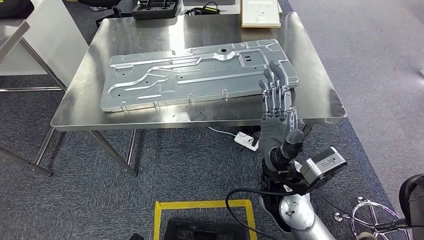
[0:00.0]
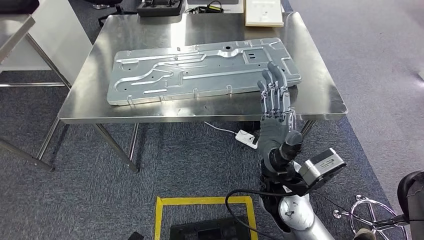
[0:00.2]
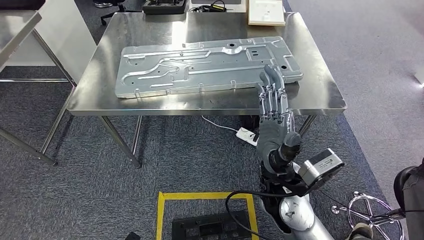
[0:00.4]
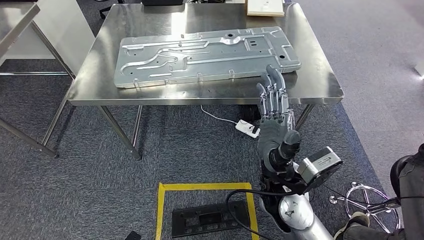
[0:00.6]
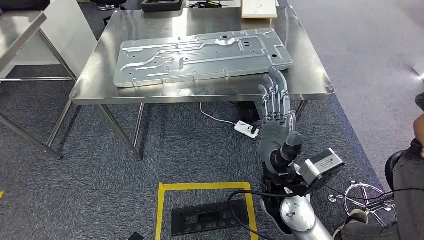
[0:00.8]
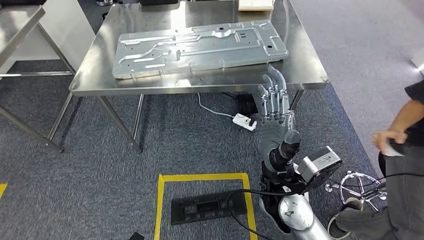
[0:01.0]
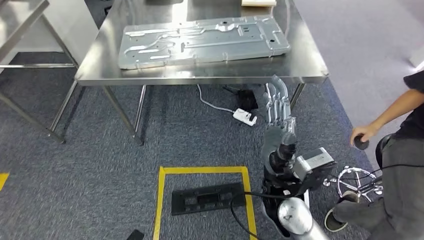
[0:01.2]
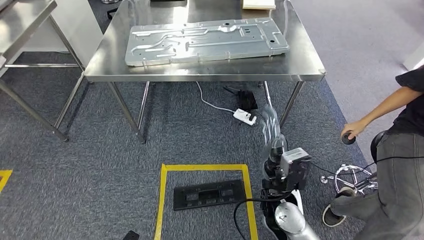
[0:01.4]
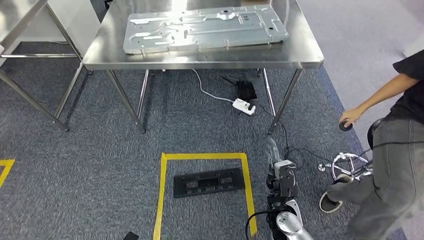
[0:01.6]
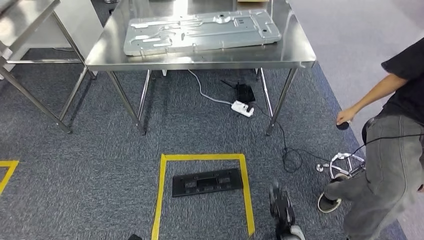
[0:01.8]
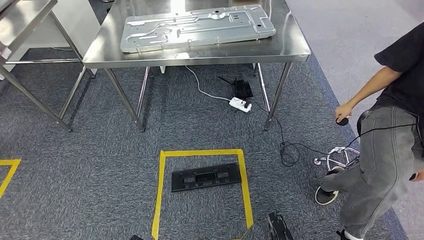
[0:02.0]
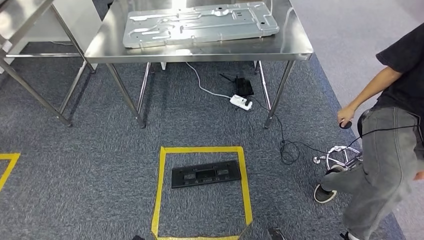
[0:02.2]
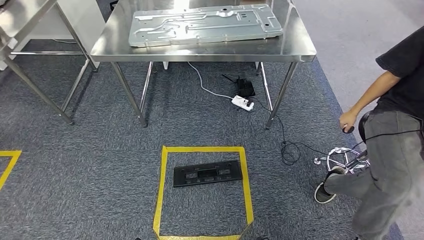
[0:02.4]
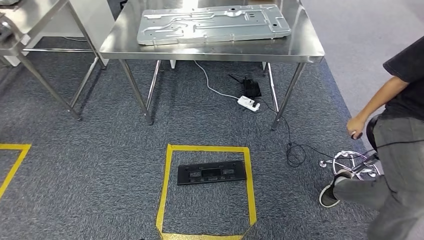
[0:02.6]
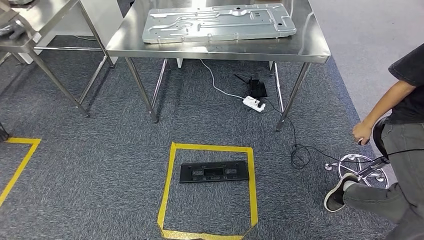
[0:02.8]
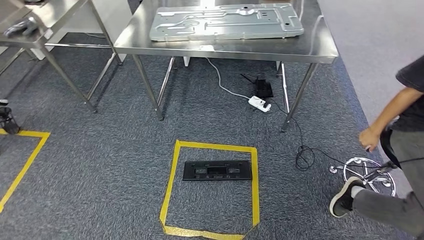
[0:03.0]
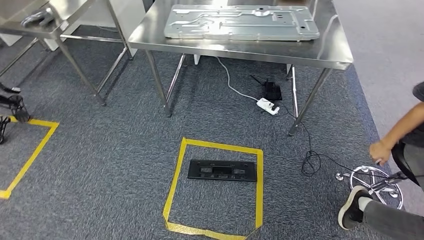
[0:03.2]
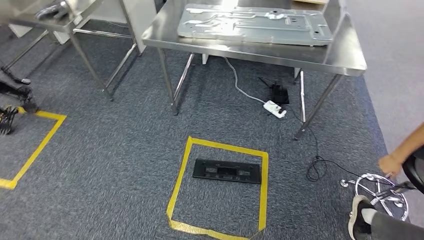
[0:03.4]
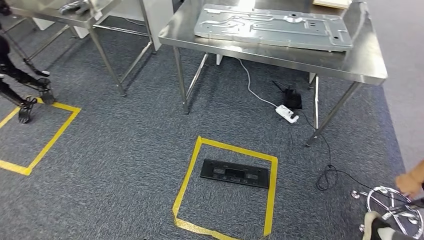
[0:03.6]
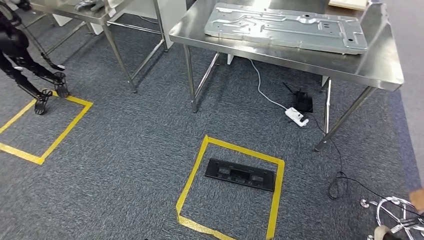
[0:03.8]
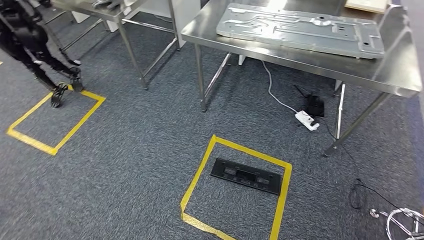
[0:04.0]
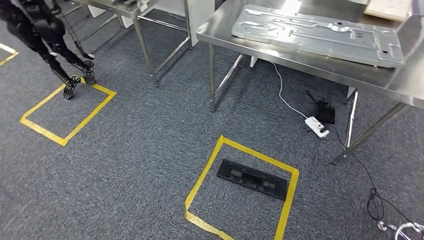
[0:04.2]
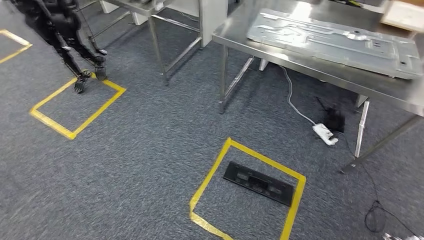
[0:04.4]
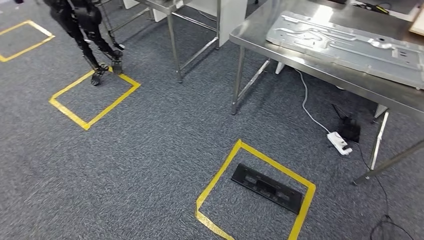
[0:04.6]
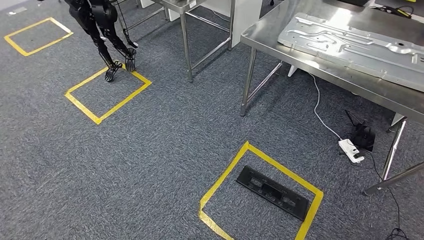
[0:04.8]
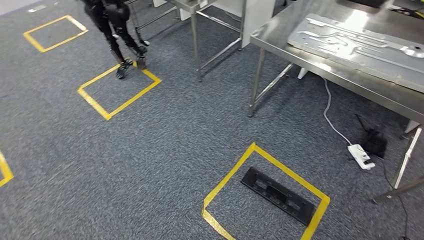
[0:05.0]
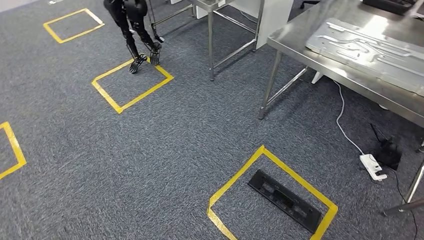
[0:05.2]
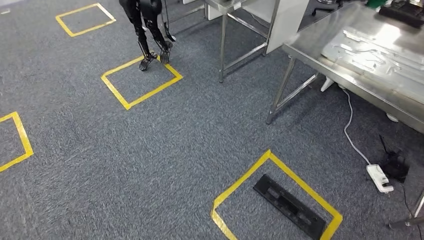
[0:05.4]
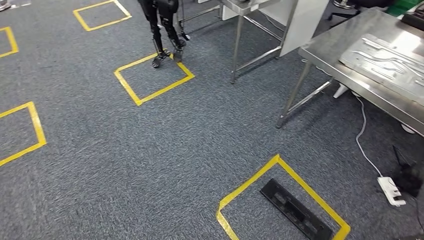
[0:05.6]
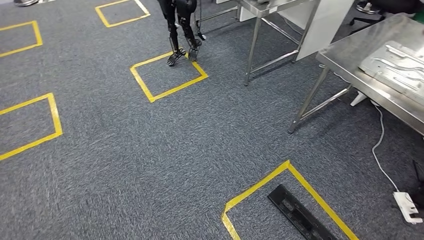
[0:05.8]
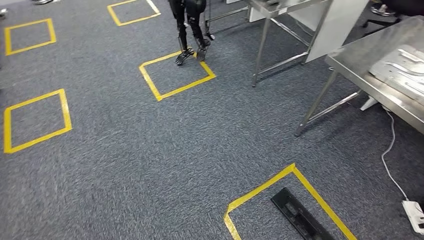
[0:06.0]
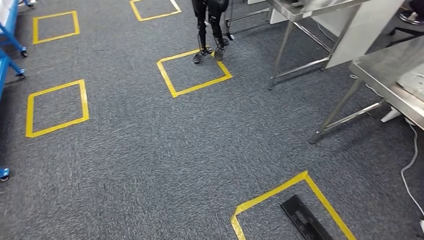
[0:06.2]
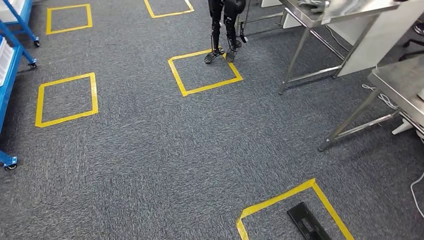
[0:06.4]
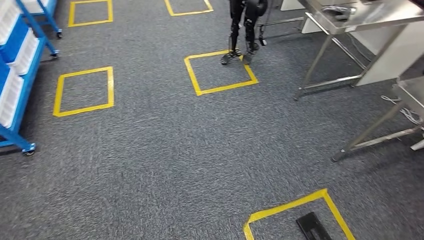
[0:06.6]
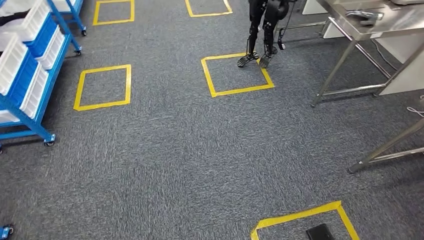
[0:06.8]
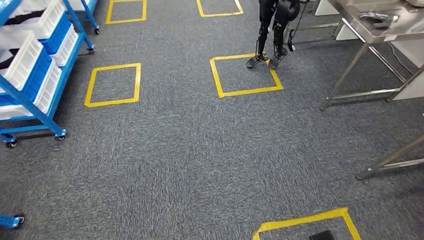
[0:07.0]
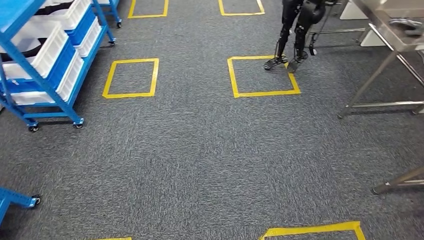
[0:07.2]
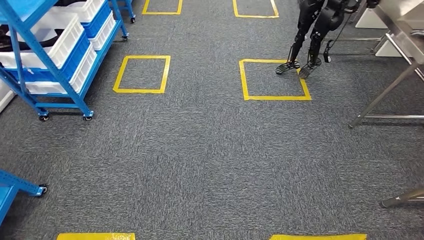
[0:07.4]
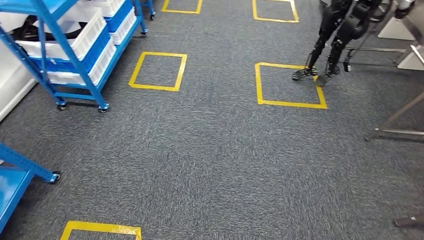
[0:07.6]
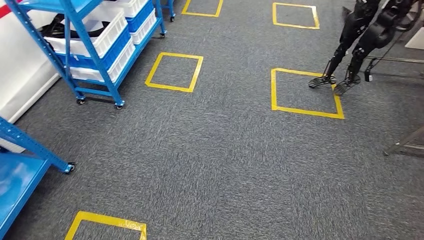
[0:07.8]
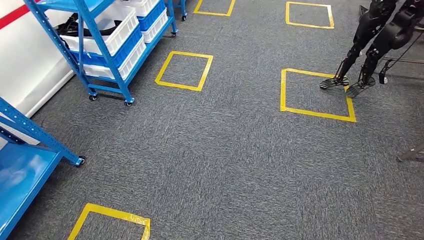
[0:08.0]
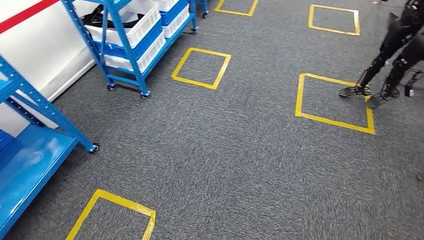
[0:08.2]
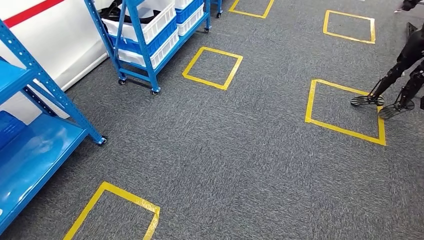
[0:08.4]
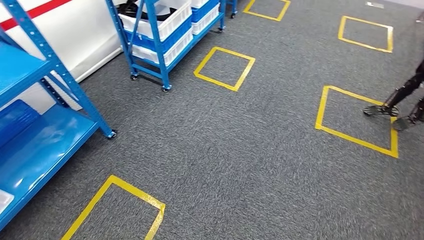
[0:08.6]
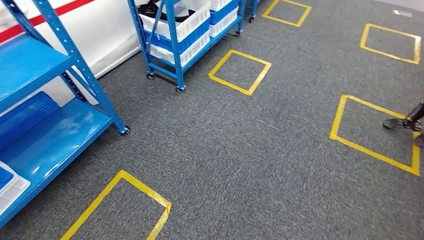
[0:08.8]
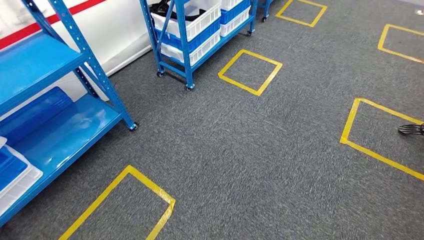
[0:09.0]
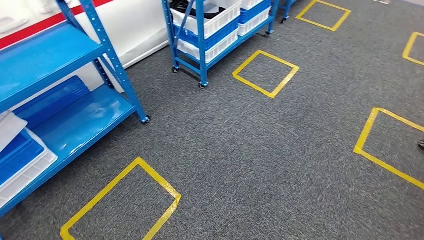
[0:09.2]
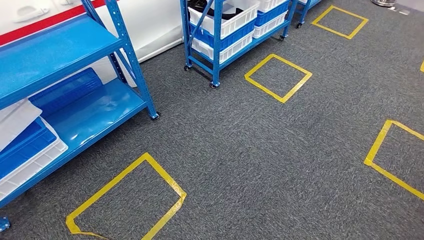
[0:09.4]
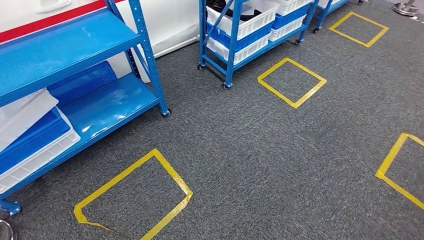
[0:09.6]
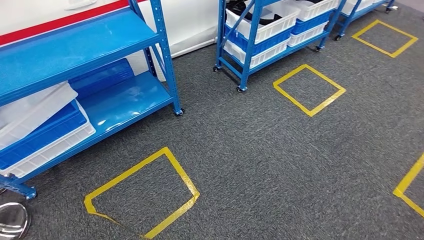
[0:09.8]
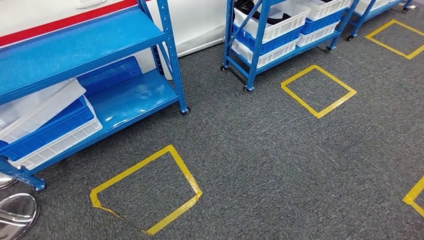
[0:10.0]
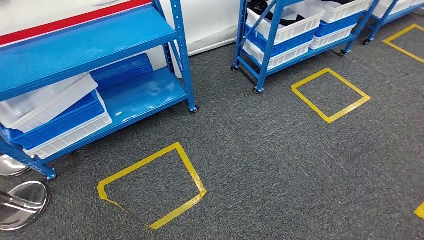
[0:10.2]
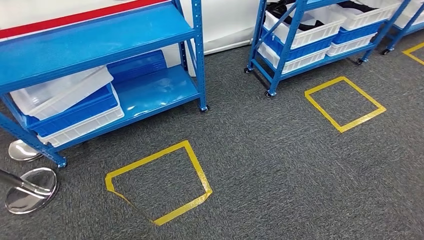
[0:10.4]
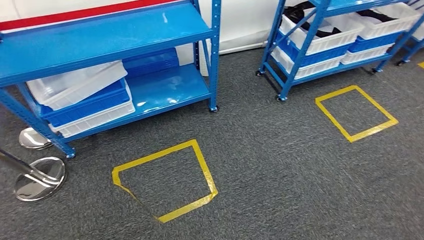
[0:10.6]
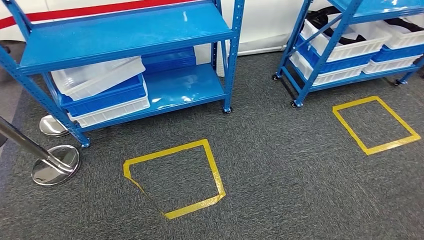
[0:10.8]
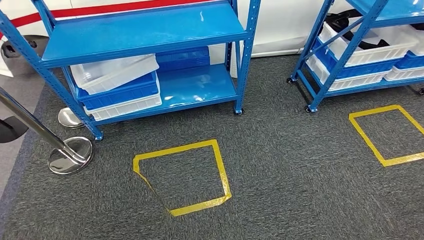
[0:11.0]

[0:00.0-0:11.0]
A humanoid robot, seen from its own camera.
Step, 0:00.0 to 0:11.0: Return to the initial position at the shelf.
